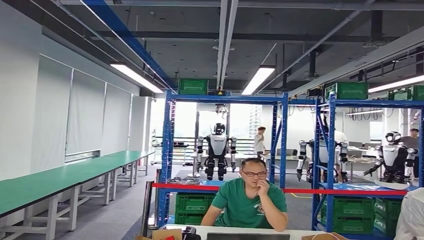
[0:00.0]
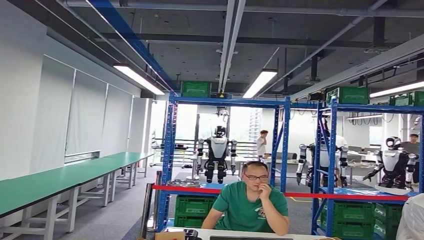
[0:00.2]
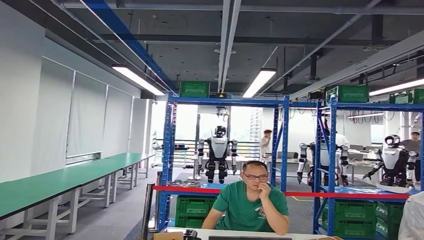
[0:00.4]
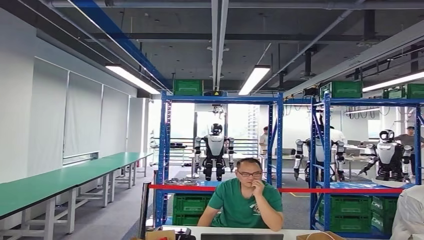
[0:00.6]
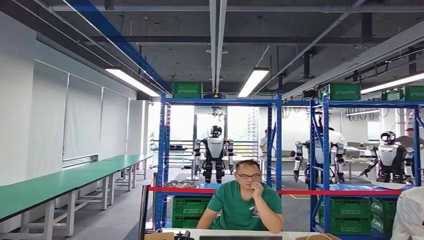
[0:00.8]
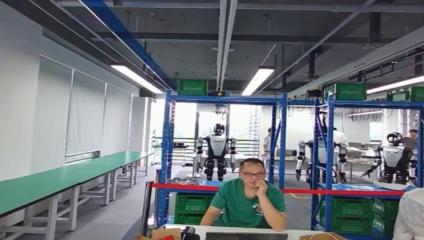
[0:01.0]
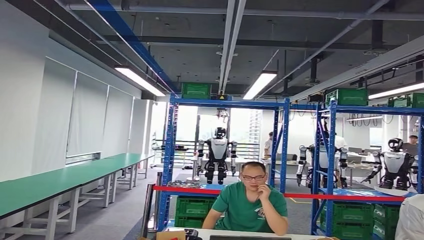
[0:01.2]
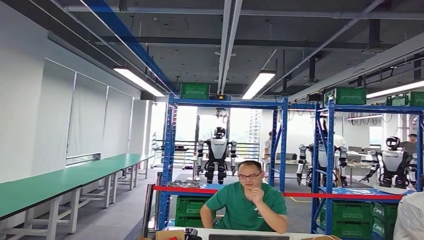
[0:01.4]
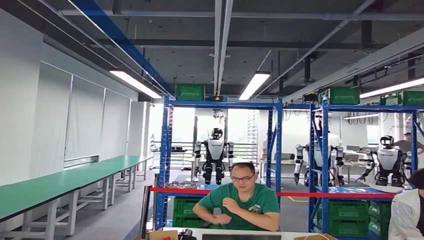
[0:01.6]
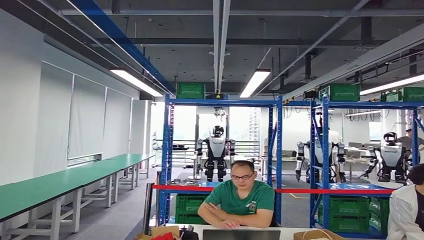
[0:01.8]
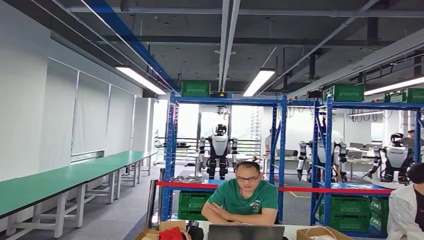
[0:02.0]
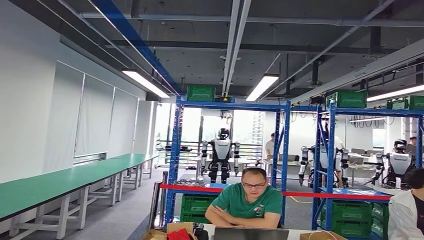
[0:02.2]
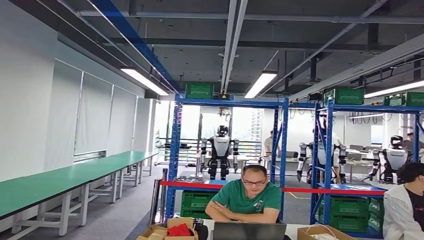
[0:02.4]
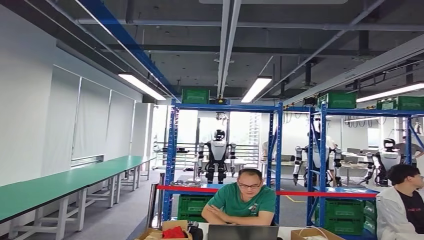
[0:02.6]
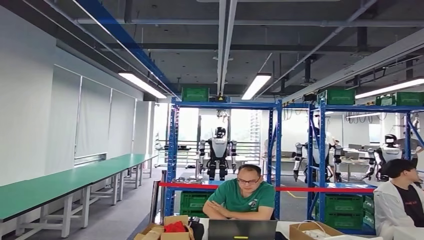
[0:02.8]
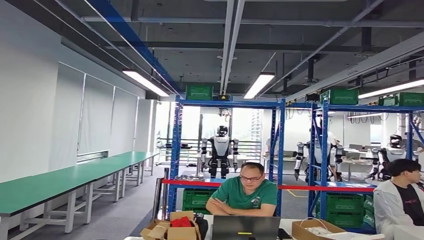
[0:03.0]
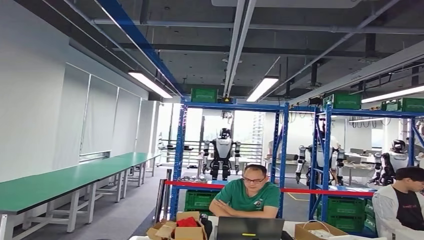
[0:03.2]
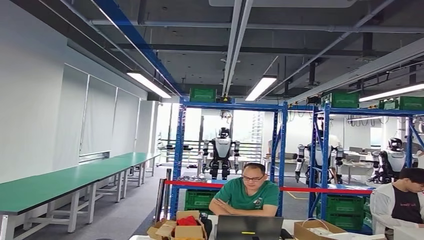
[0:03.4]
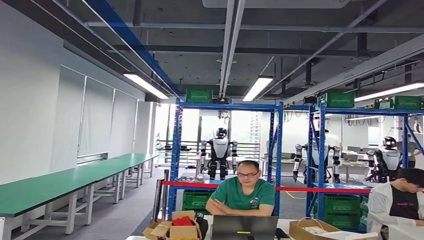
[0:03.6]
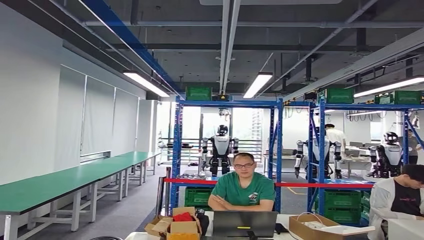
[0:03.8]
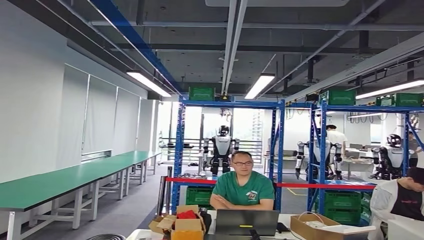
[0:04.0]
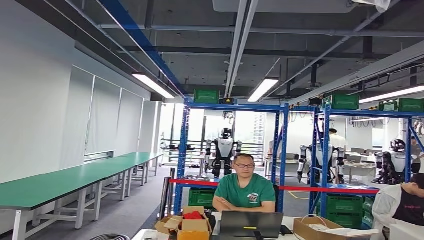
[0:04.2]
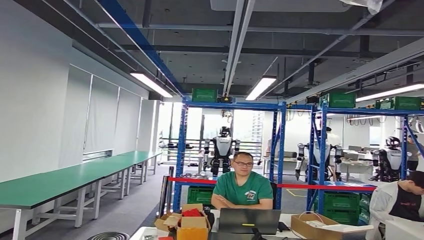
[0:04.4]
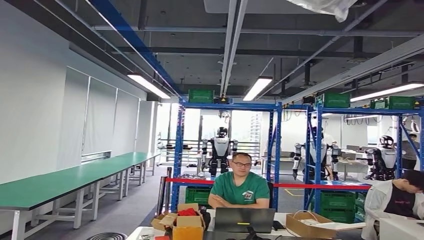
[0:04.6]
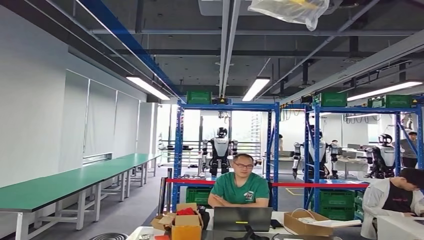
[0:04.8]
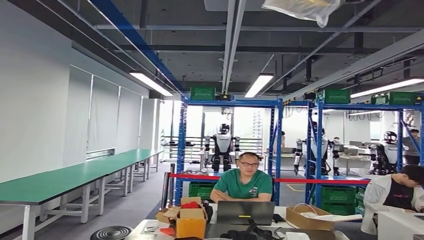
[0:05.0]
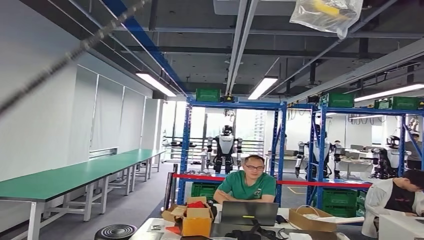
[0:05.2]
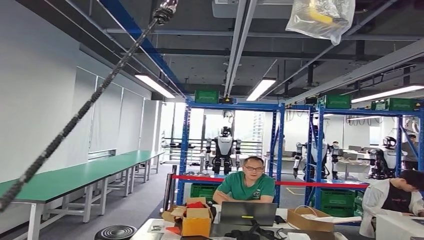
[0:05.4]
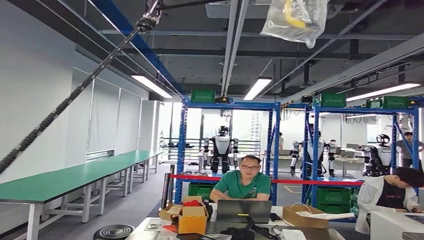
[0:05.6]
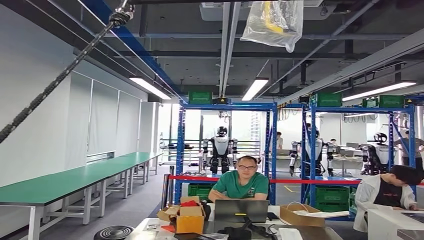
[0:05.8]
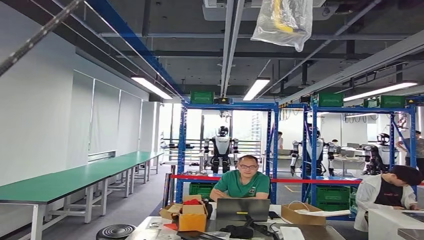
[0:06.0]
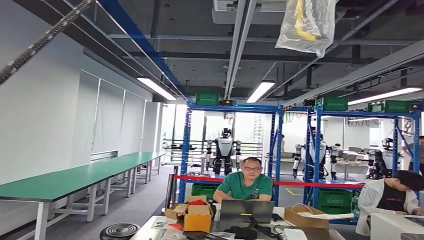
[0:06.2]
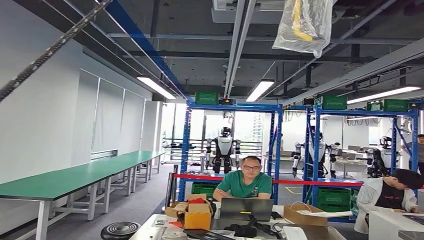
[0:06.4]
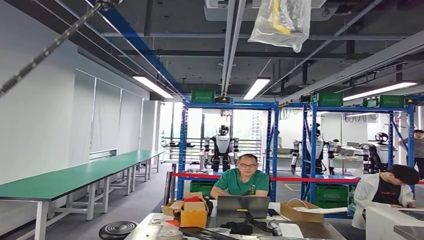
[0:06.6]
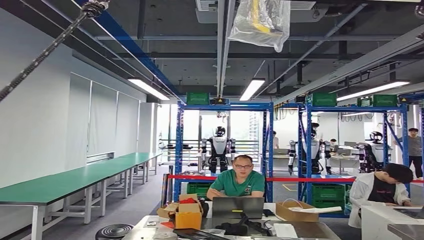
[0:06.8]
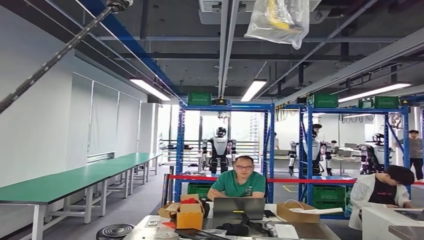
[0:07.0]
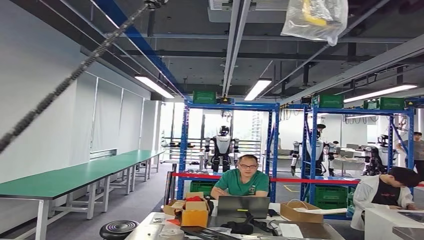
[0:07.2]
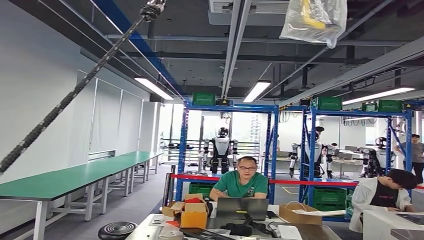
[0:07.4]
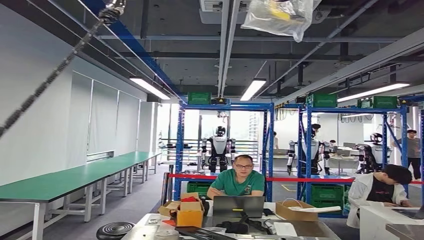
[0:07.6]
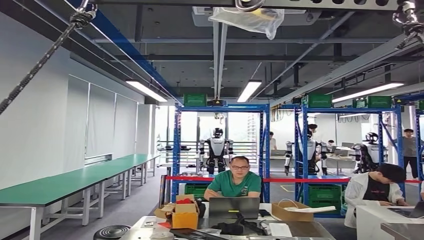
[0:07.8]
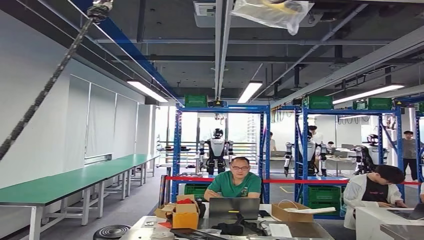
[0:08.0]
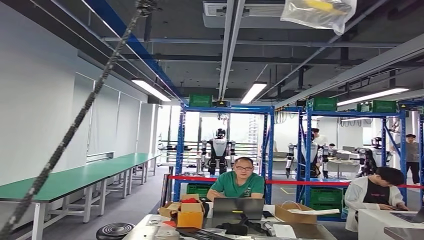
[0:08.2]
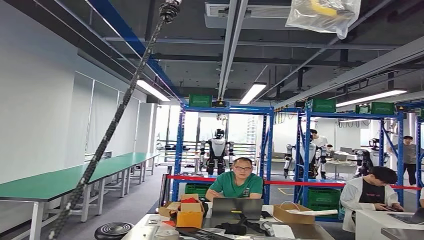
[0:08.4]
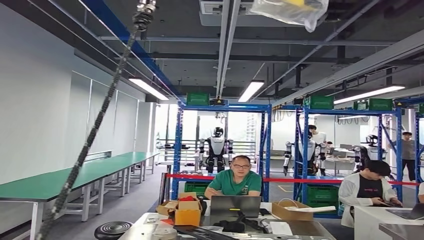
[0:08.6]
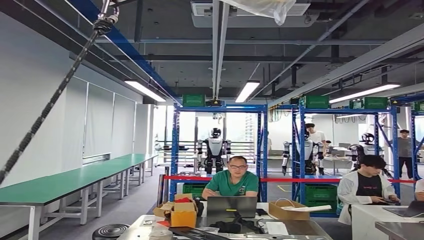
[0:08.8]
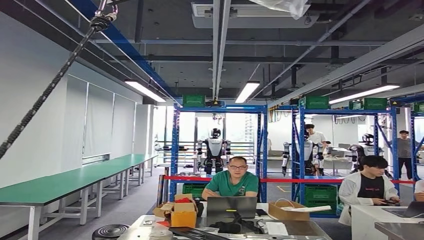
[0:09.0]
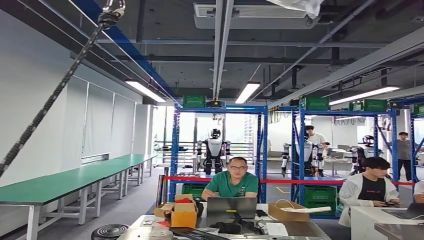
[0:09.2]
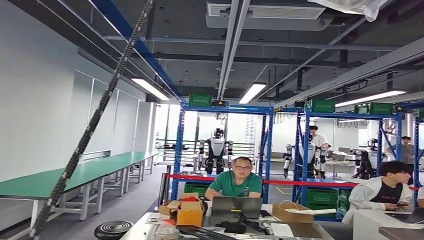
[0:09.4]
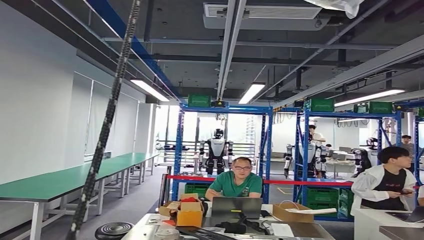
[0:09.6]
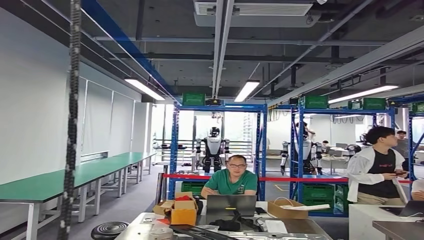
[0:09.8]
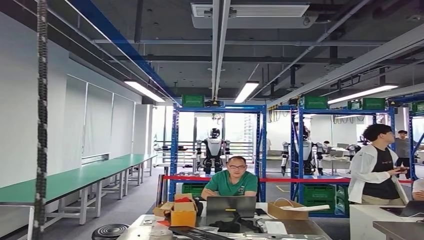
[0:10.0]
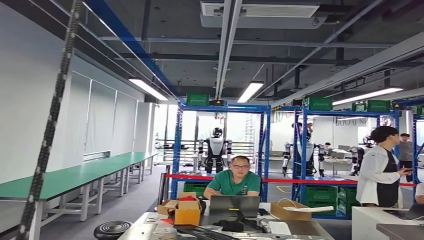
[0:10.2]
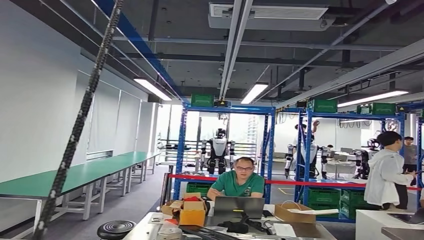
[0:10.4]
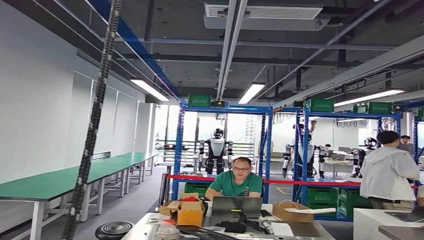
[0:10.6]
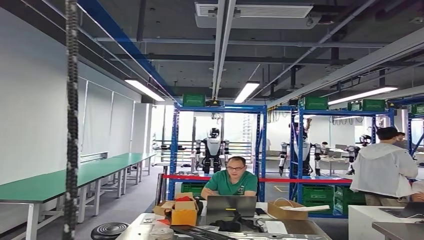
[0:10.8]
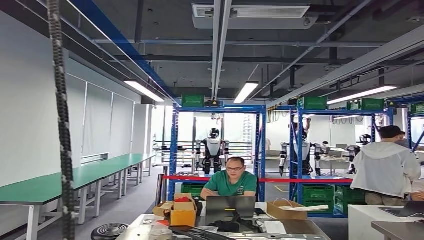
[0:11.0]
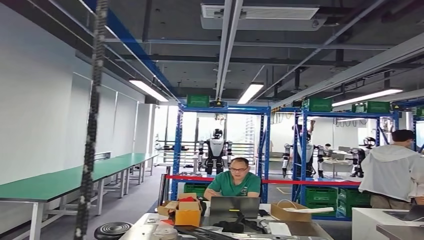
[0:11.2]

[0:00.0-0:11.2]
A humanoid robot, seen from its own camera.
Step, 0:01.0 to 0:11.2: Return to the initial position at the workbench.

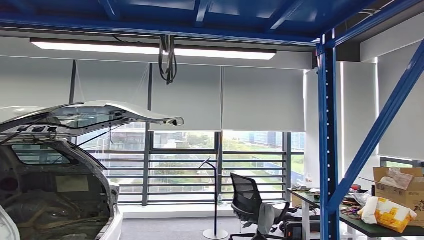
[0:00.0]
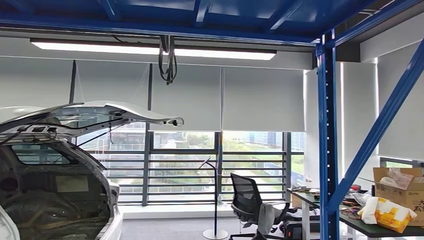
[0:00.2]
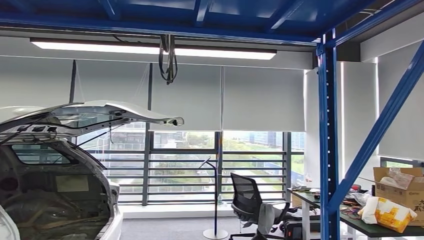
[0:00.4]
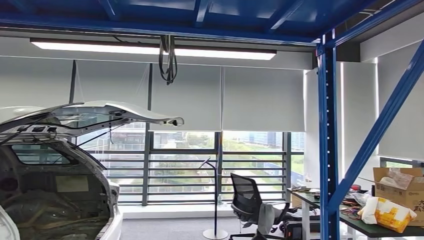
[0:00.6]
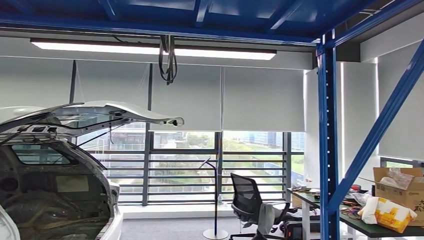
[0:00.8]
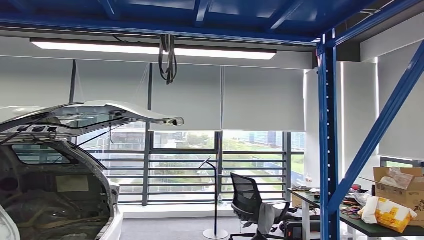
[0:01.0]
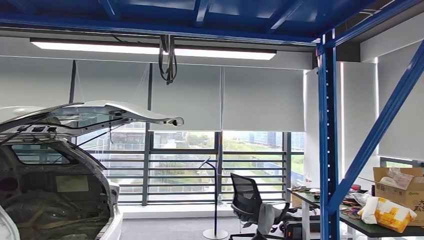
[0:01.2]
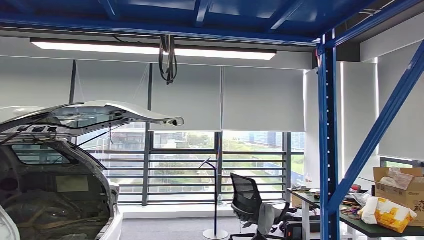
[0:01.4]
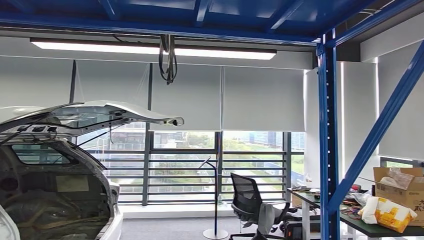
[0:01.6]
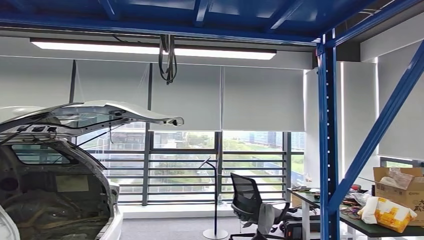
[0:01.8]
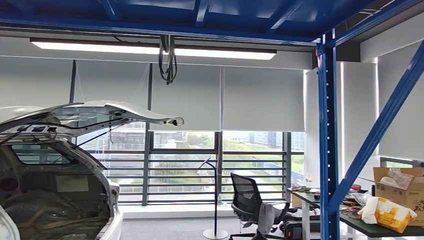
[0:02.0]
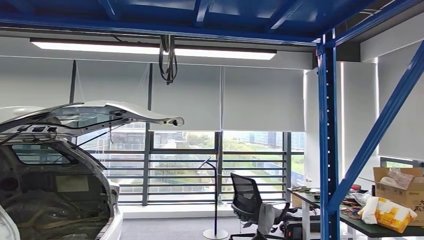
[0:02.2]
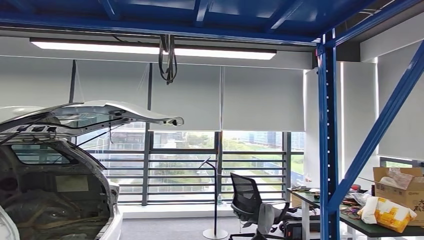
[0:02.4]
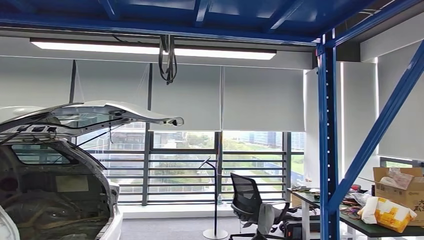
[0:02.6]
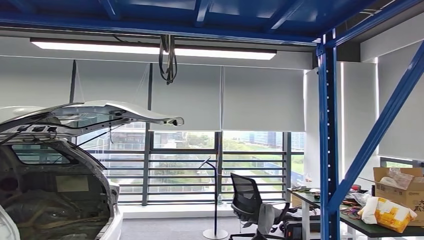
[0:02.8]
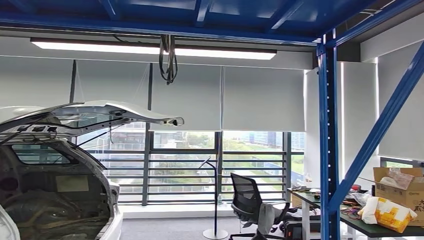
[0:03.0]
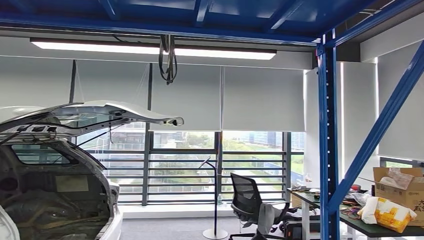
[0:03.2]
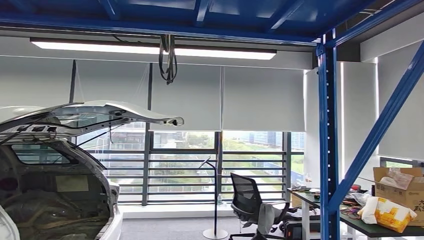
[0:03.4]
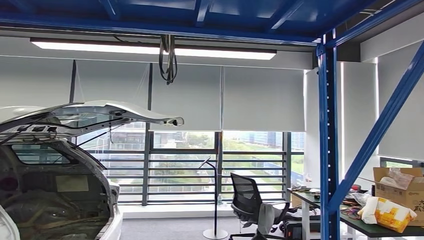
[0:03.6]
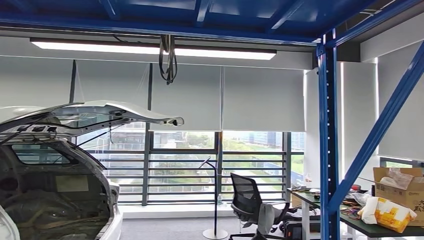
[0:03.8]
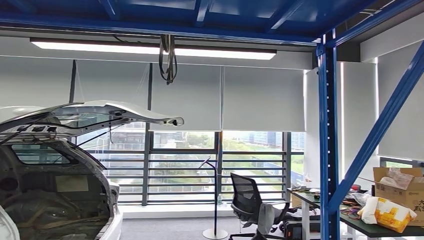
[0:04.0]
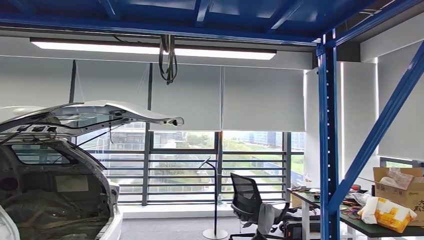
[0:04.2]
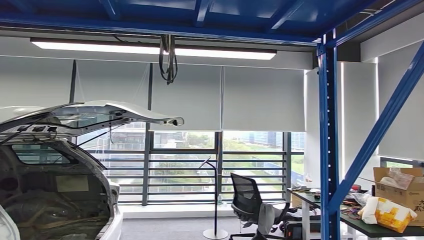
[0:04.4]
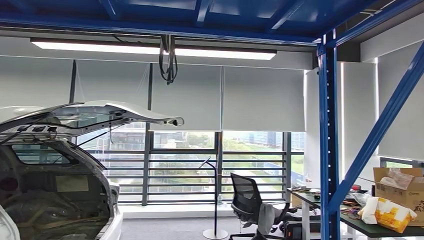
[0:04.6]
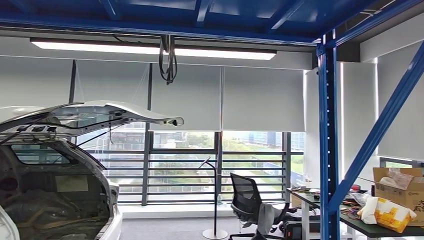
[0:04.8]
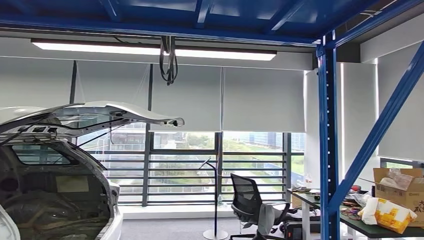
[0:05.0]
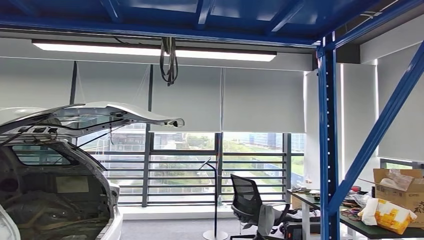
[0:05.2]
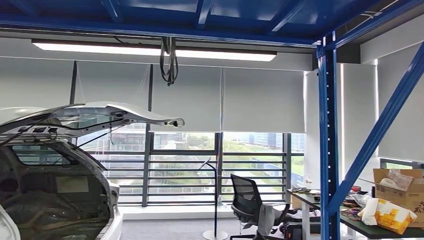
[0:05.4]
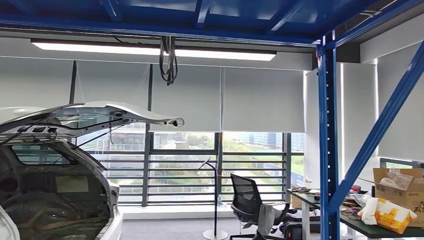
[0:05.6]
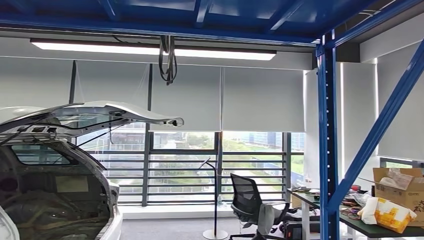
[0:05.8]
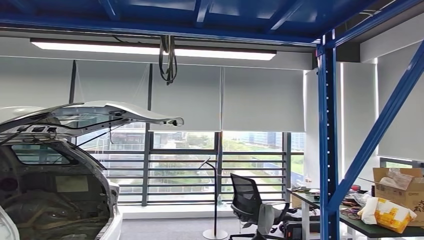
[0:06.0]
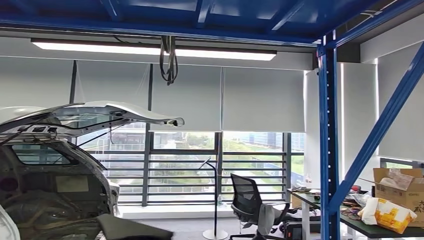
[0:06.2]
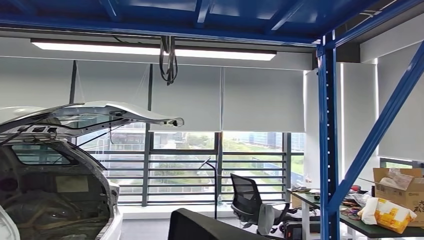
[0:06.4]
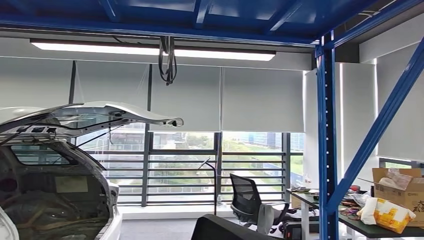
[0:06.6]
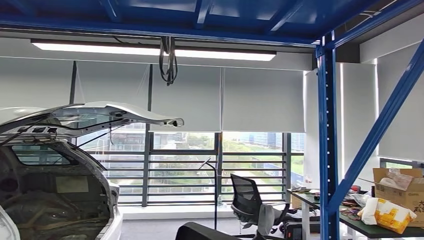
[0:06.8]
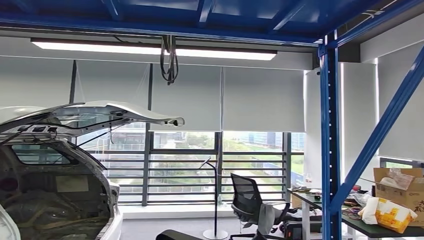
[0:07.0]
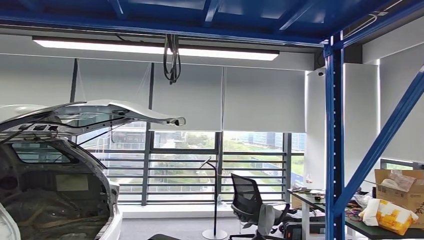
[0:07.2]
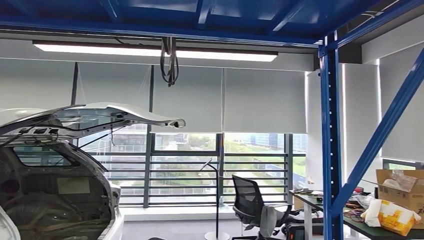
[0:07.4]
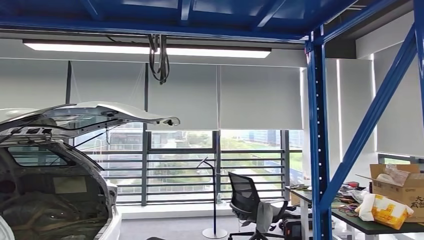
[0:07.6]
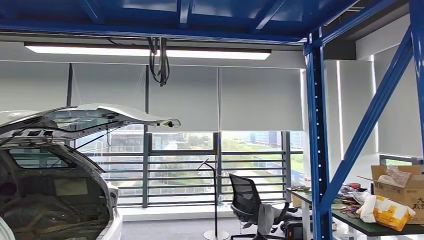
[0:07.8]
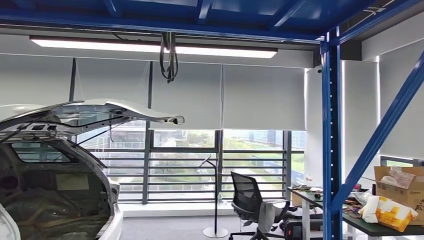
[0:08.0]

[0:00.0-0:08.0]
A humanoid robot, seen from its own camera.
Step, 0:00.0 to 0:05.6: Pick up the small component from the shelf.
0:04.8 to 0:06.4: The right hand is displaced backward and to the right by some 10 cm.
